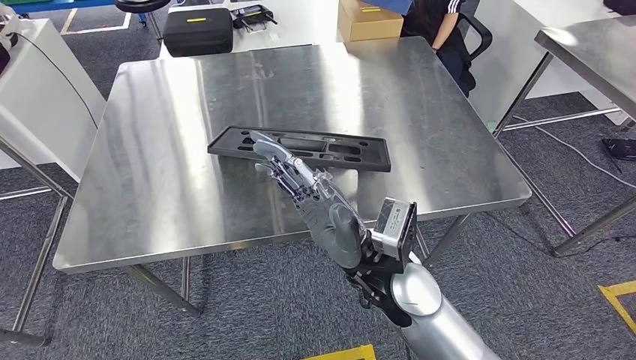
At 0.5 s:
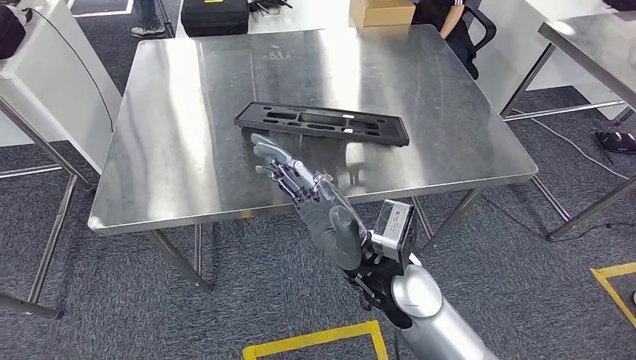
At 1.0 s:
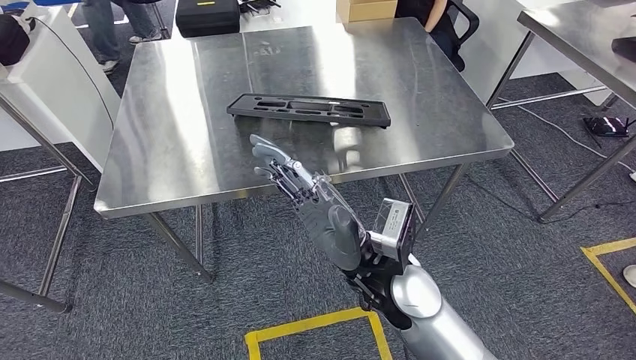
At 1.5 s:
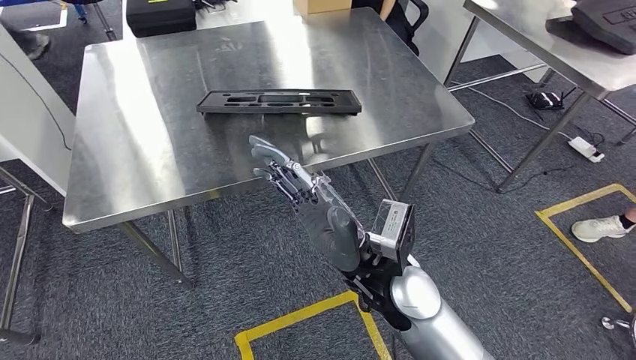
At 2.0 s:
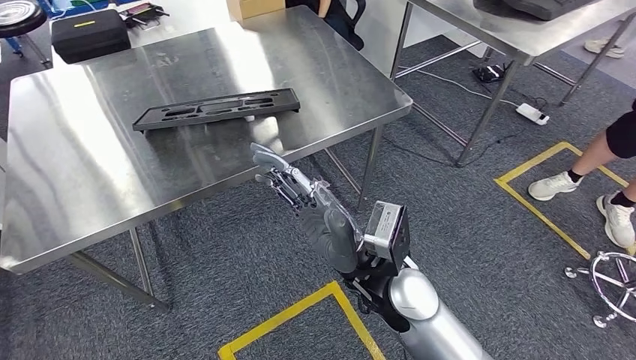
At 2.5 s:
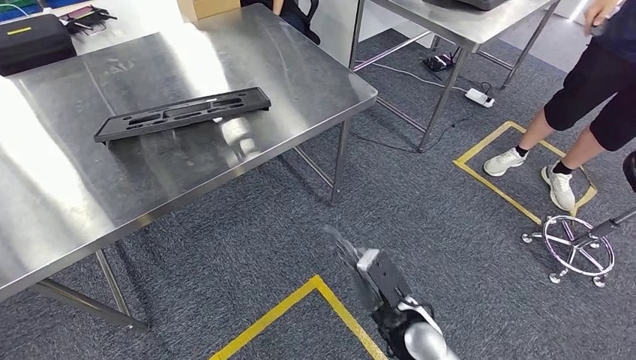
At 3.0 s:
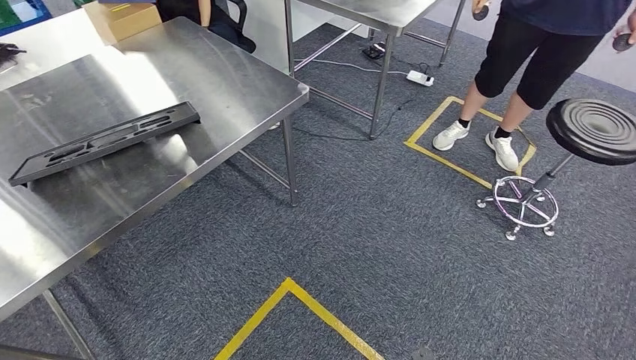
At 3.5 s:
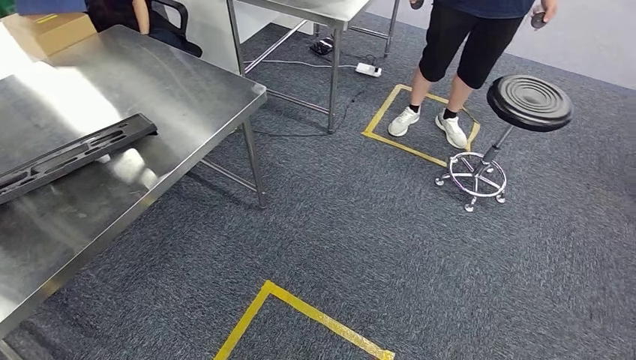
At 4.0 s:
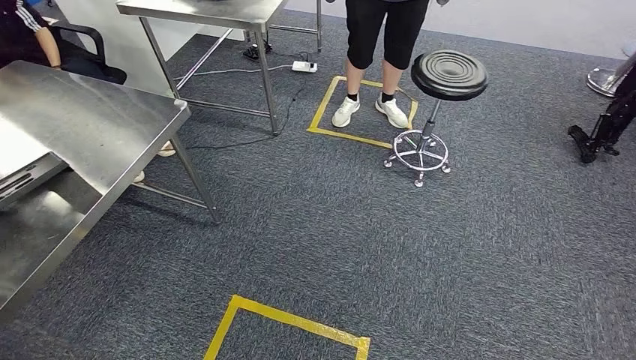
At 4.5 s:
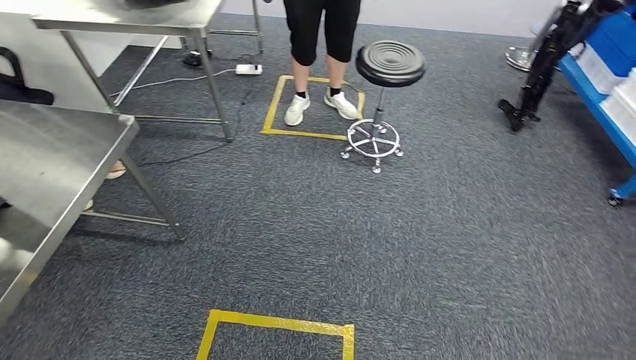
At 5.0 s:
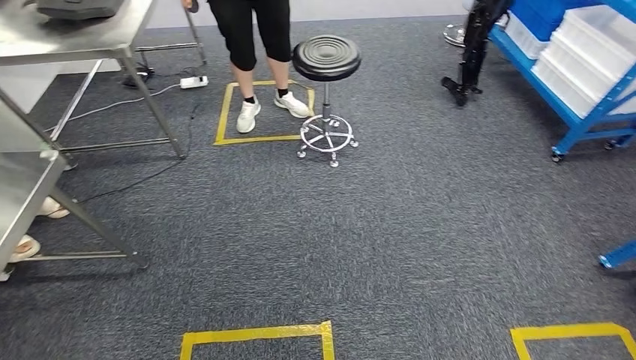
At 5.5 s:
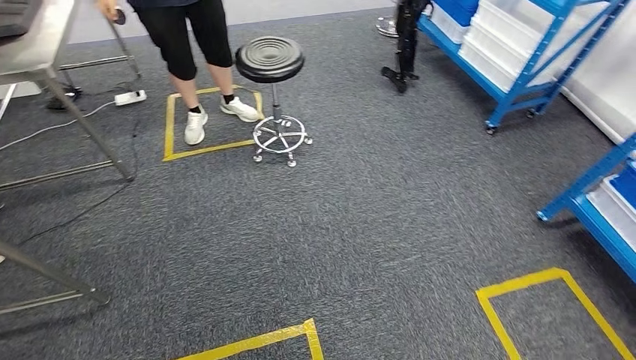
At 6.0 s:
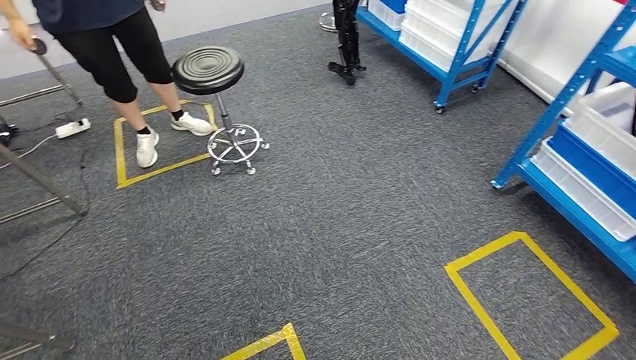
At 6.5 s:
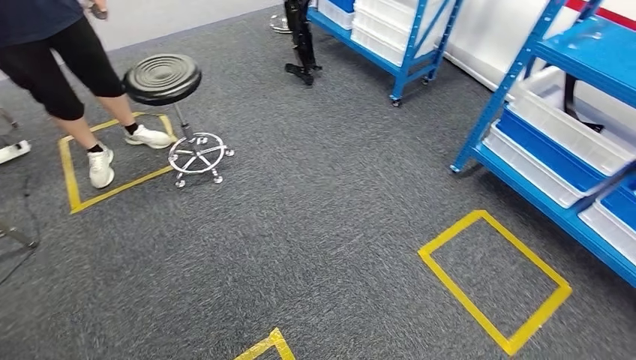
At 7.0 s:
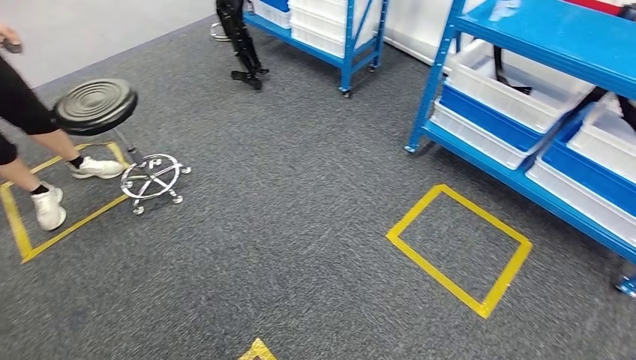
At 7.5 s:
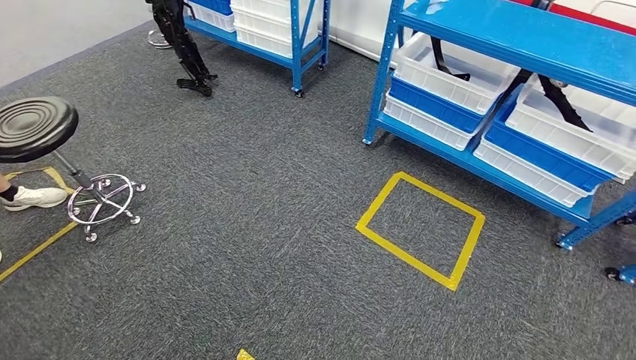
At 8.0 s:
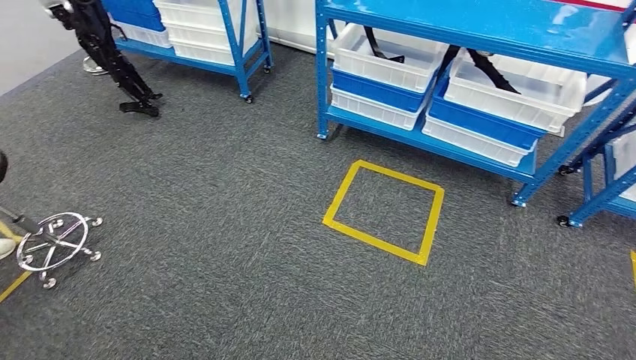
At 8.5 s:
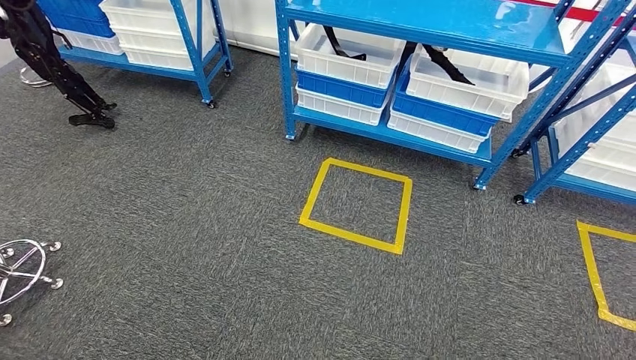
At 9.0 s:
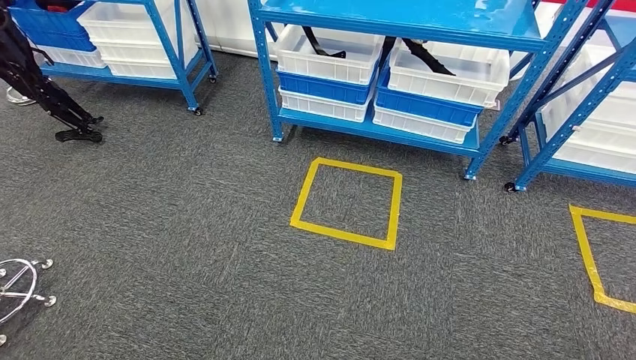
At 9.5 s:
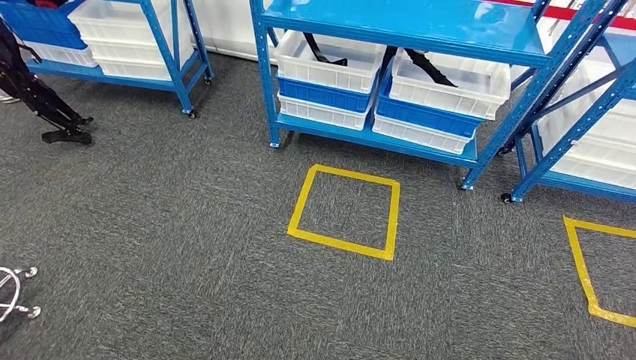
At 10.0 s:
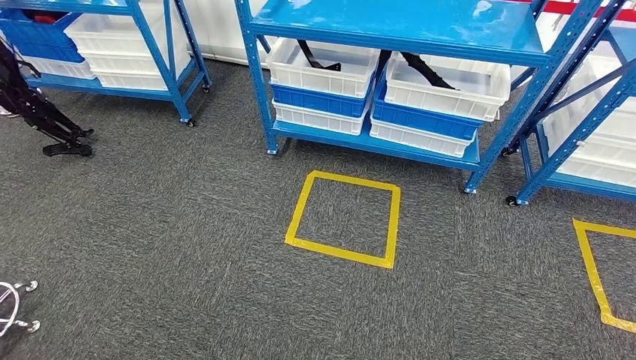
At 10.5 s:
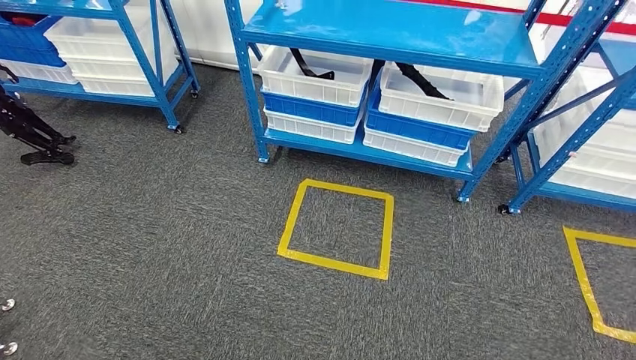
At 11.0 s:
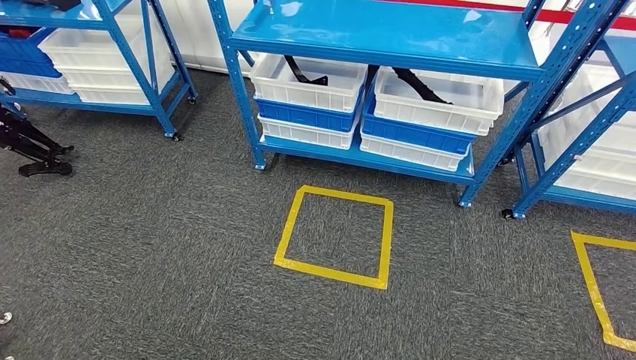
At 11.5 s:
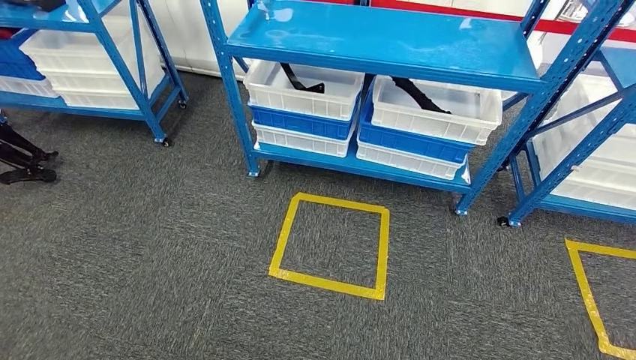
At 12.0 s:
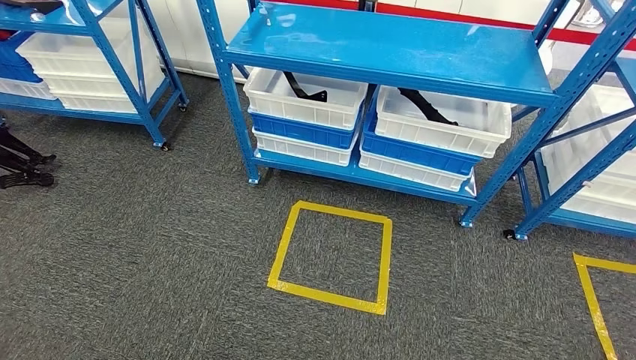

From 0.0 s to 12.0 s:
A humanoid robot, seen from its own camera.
Step, from 0.0 s to 2.5 s: Insert the large material into the corresponding slot on the workbench.

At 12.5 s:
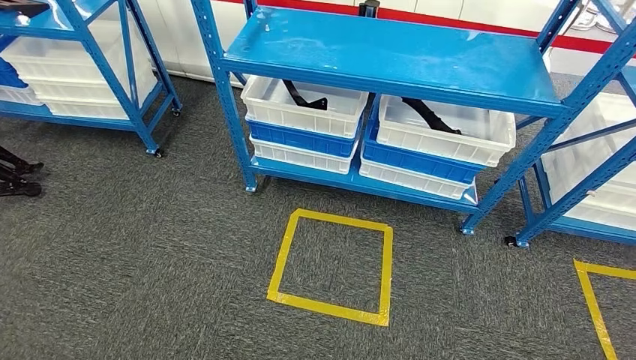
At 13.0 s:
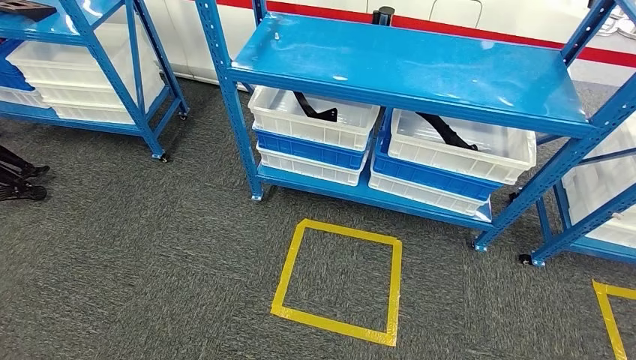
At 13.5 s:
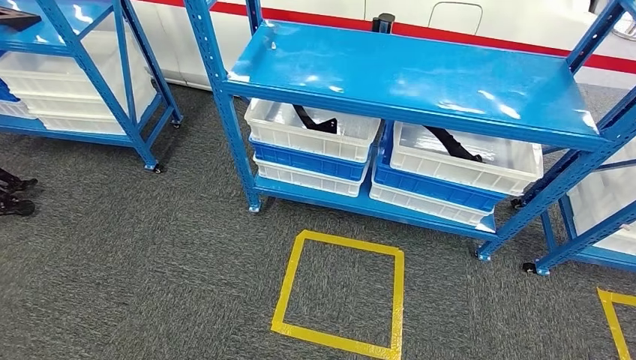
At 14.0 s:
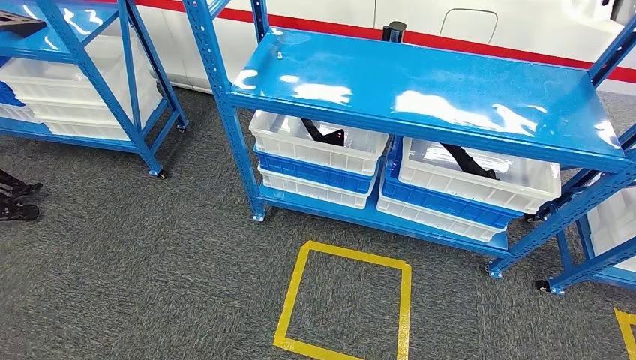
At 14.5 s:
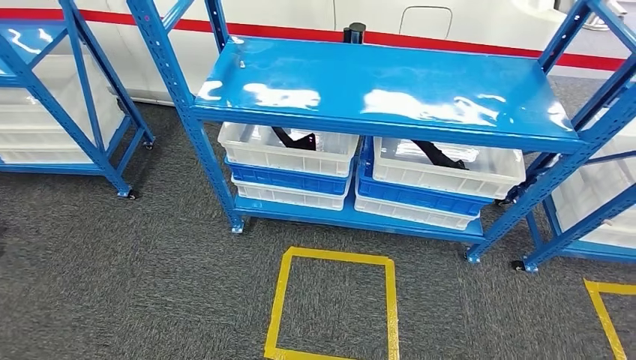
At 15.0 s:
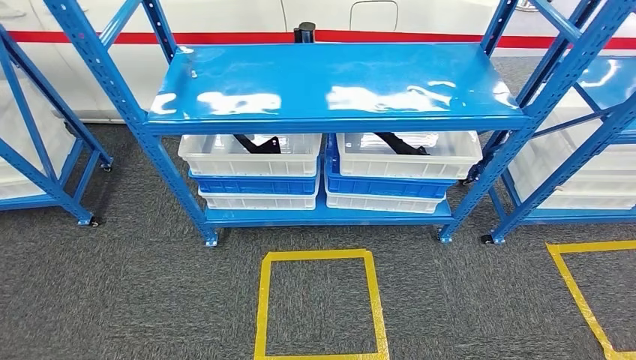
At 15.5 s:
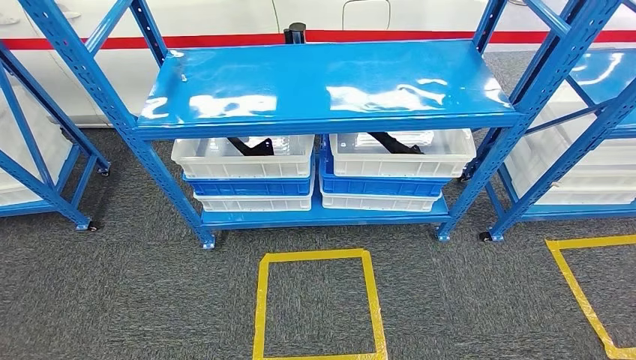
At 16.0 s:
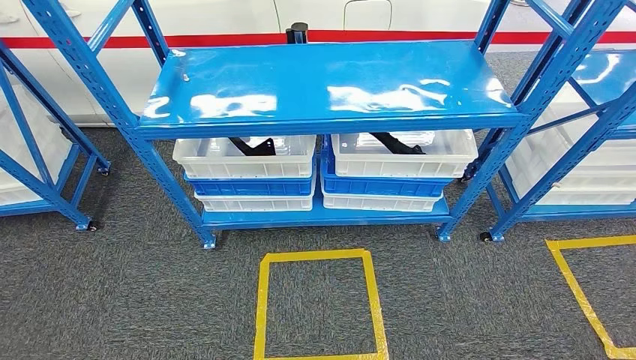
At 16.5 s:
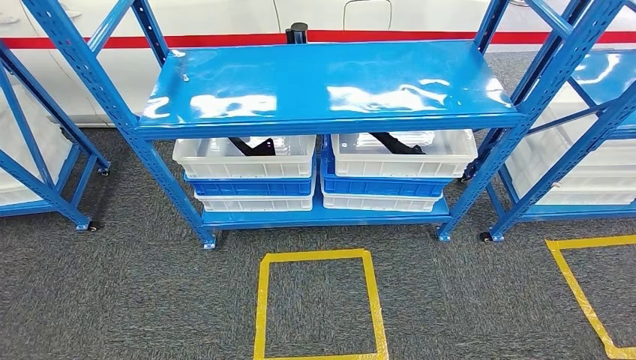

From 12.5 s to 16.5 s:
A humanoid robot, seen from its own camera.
Step, from 12.5 s to 16.5 s: Return to the initial position at the shelf.
